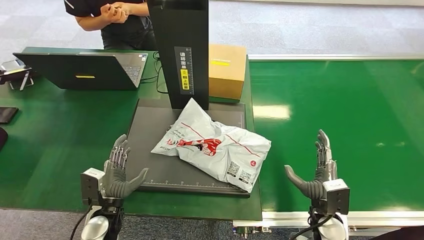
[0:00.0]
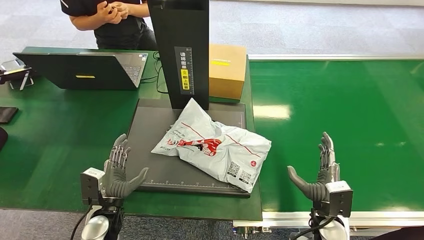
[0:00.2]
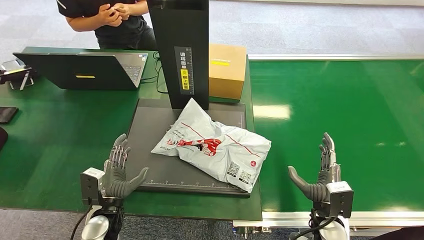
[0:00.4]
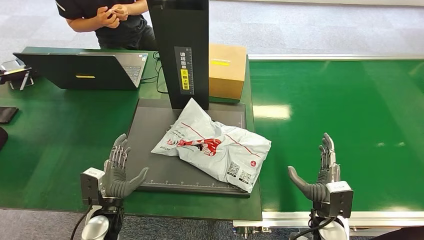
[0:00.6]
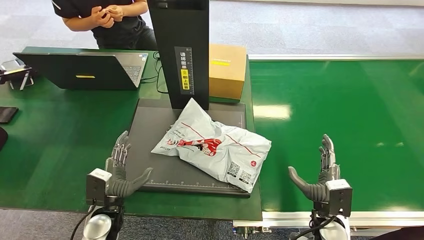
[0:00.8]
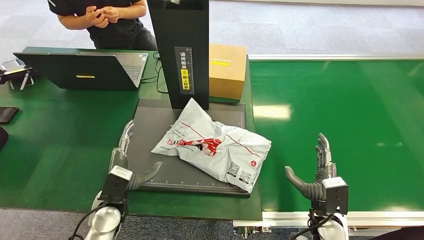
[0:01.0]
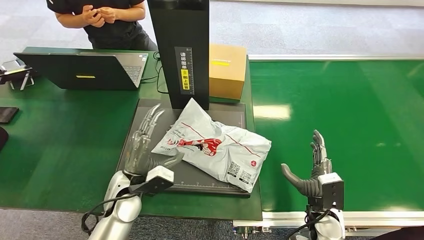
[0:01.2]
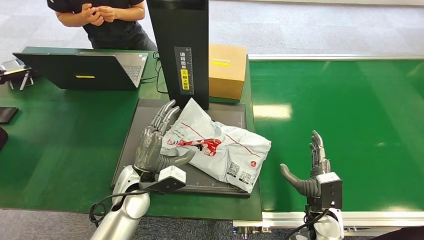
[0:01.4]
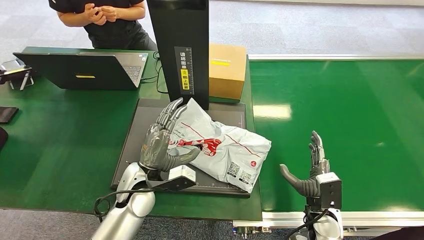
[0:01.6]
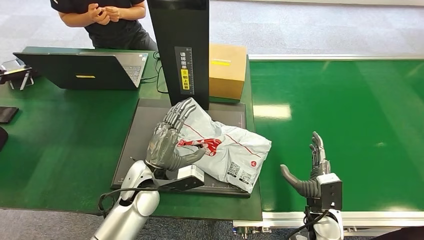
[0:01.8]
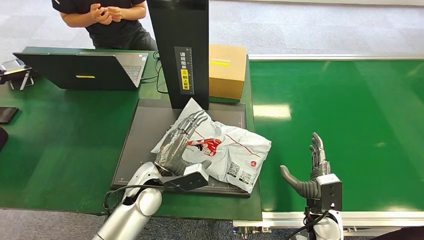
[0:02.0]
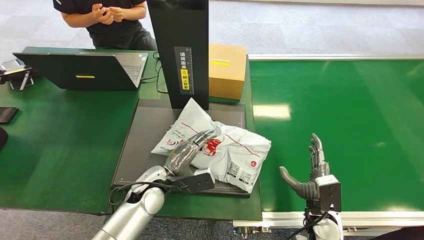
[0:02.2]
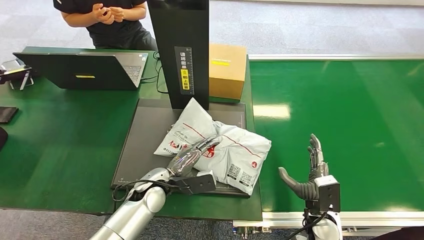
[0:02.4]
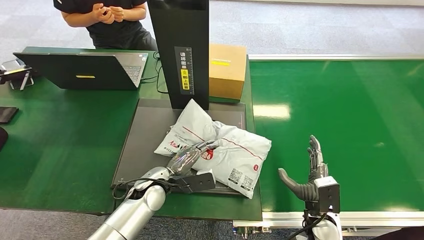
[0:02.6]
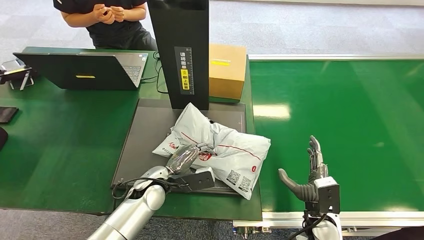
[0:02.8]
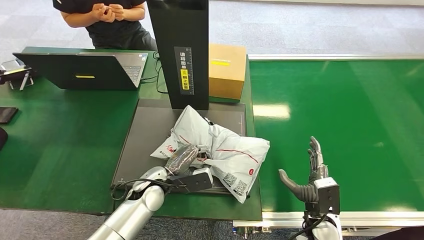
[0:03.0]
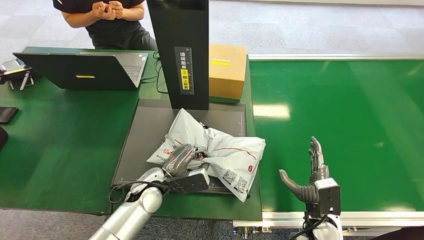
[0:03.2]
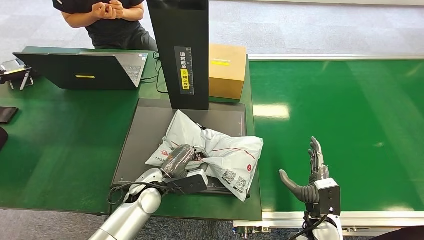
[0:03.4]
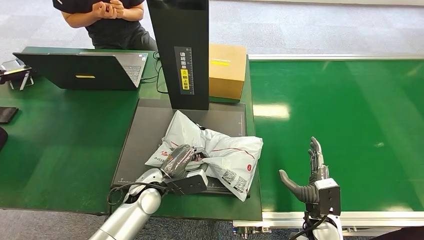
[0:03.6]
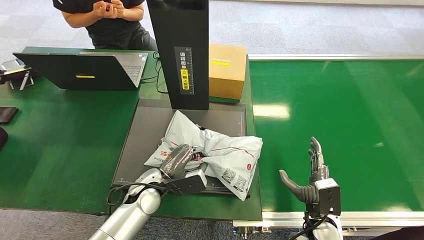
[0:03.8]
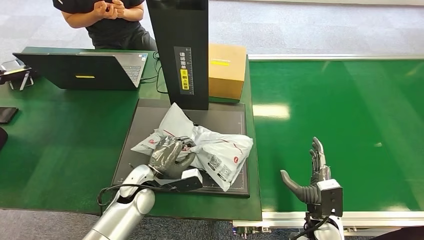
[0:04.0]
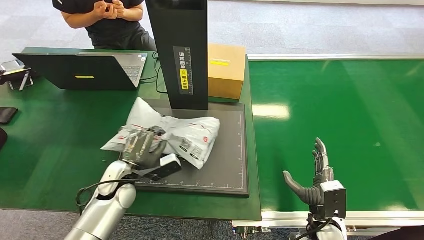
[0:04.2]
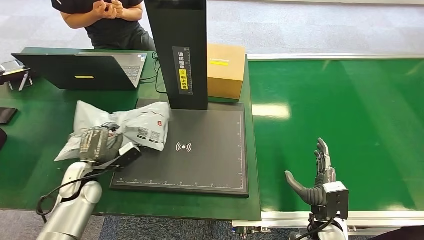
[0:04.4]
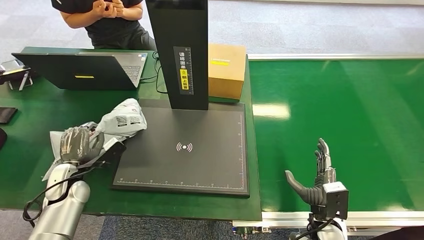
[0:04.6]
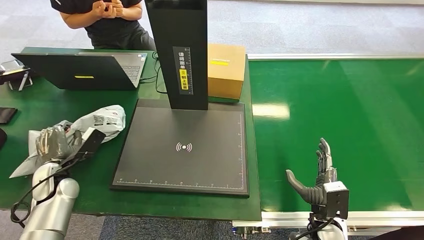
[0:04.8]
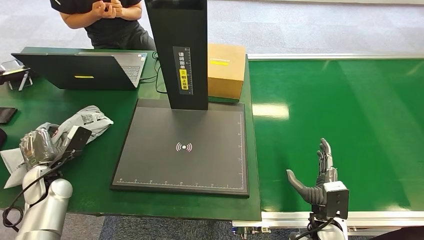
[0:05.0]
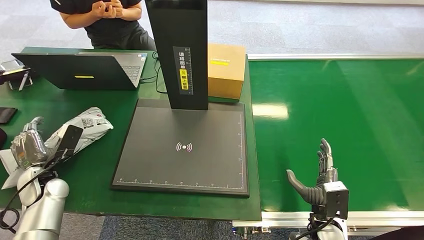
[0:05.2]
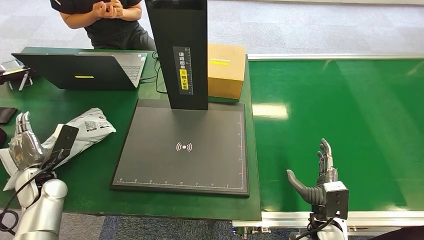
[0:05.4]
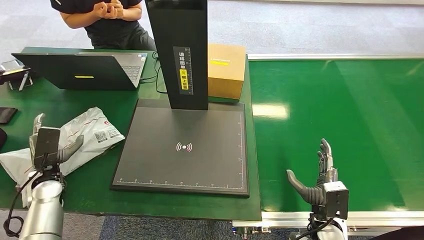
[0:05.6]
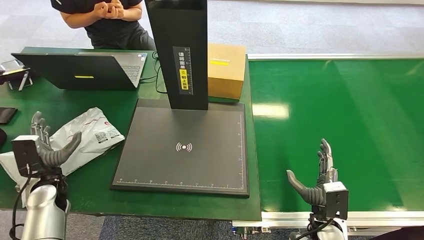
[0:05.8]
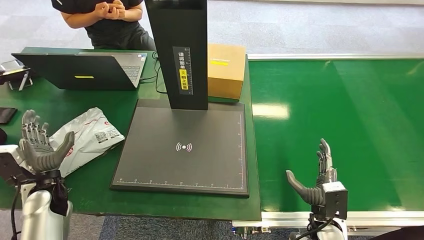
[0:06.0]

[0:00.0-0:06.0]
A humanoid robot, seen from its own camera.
Step, 0:01.2 to 0:04.4: Pick up the package from the inbound machine.
Step, 0:04.6 to 0:06.0: Place the package into the parcel locker.
0:00.0 to 0:01.6: The left hand heads to the right, upward and forward, covering roughly 15 cm.
0:01.6 to 0:03.0: The left hand heads downward, covering roughly 5 cm.
0:04.4 to 0:06.0: The left hand shifts about 10 cm to the left.
